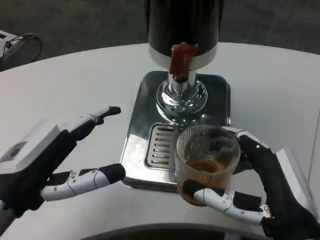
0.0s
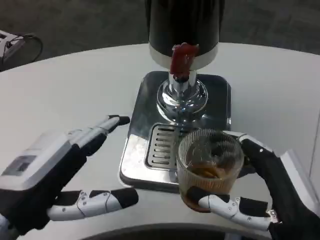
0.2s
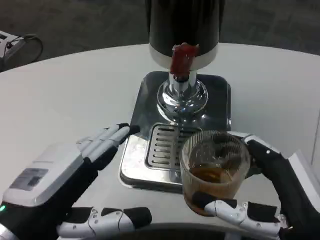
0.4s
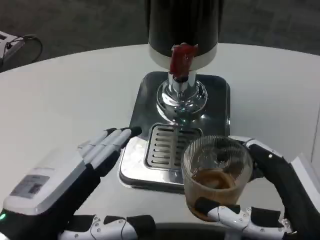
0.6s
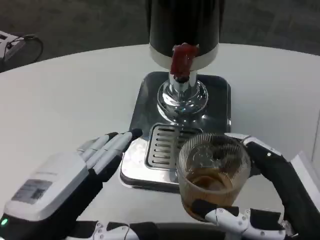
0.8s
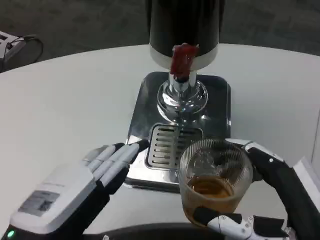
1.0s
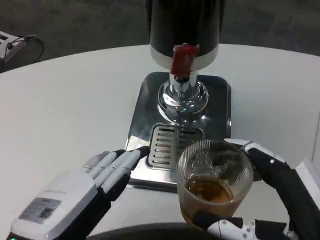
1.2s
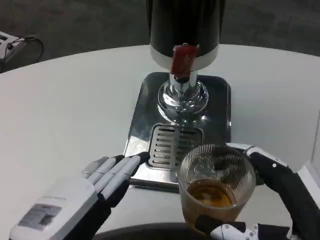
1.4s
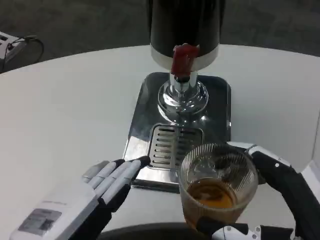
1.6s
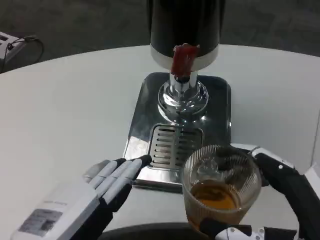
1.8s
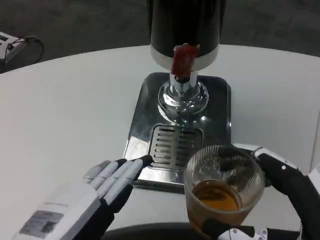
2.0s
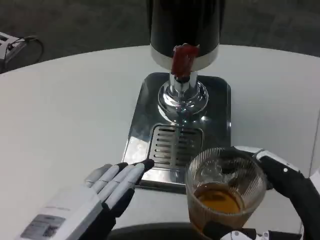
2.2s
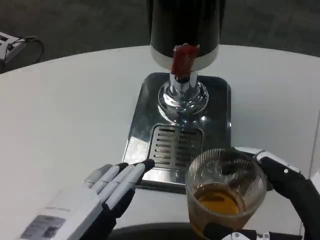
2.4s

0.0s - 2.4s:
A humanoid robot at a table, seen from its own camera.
Task of the whole recording: Grasp the cup under the faucet to collect the drink, then remove the cup.
0.0s - 1.2s: The left hand is displaced backward by about 5 cm.
1.2s - 2.4s: The hands stay close to where they were, moving slightly.

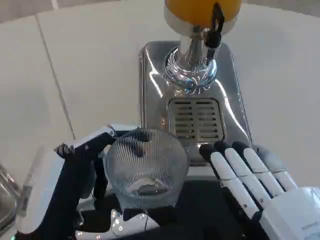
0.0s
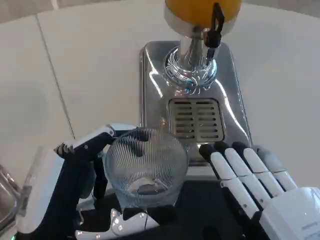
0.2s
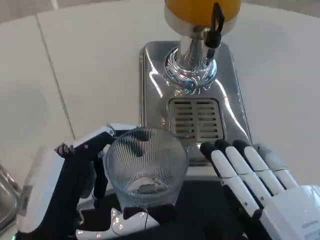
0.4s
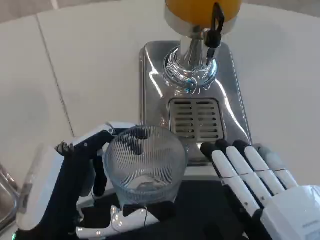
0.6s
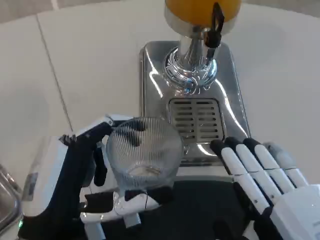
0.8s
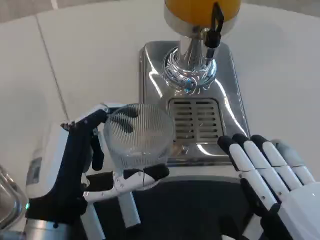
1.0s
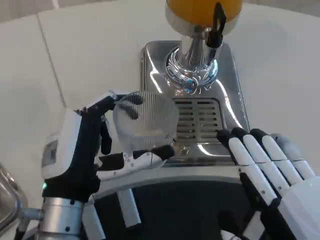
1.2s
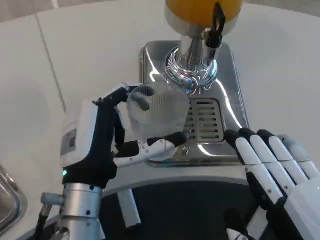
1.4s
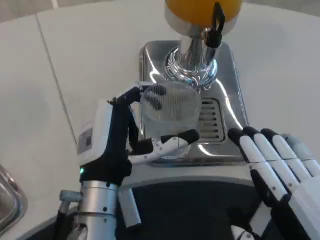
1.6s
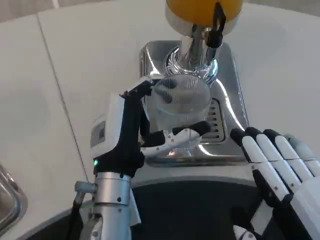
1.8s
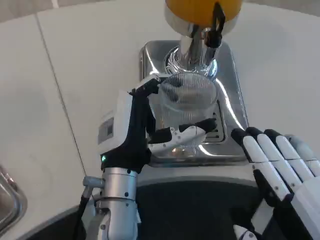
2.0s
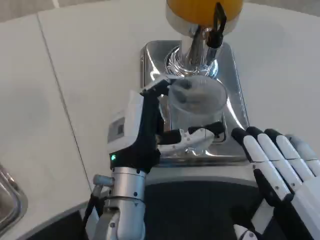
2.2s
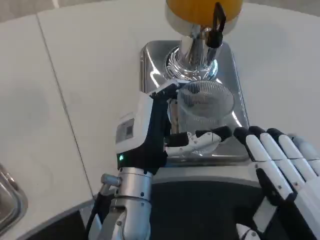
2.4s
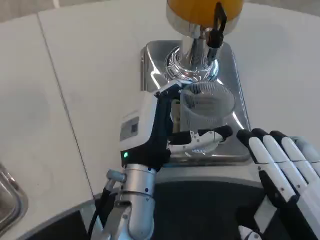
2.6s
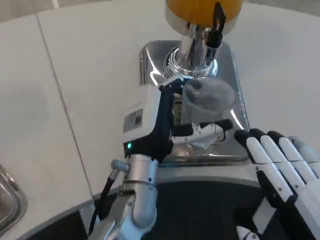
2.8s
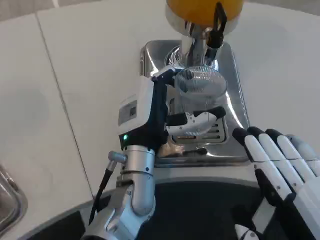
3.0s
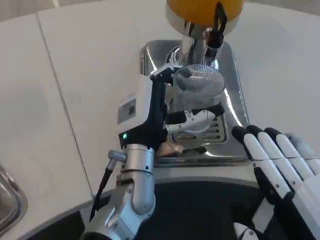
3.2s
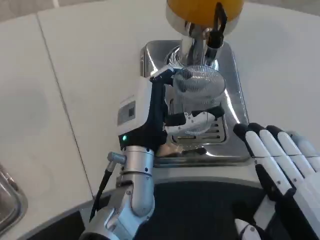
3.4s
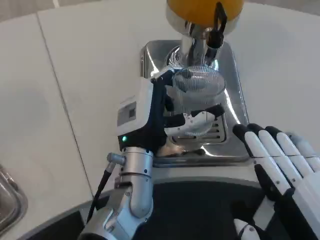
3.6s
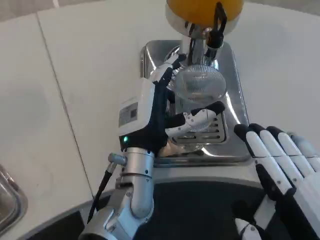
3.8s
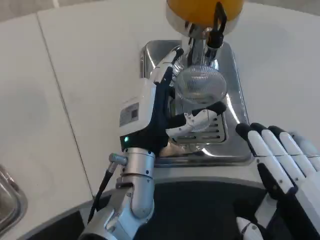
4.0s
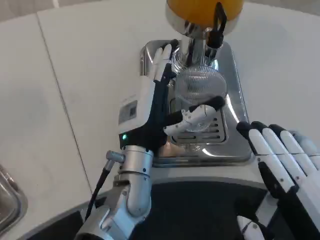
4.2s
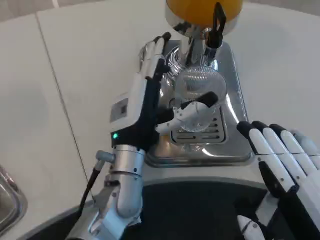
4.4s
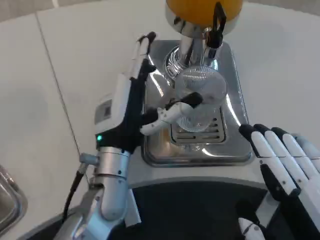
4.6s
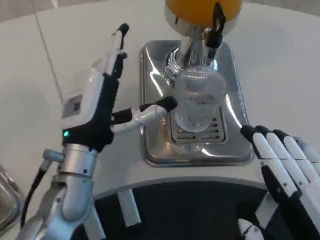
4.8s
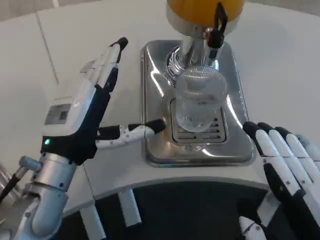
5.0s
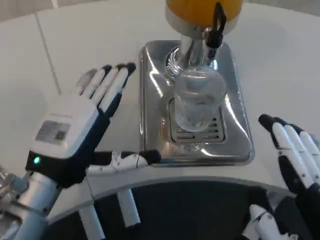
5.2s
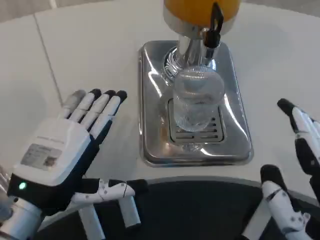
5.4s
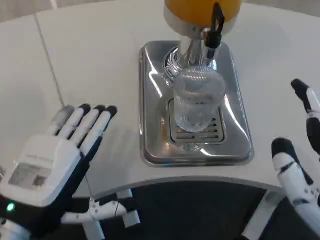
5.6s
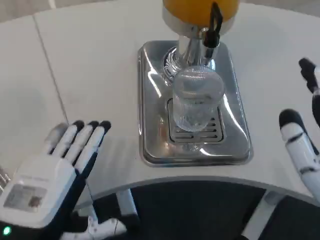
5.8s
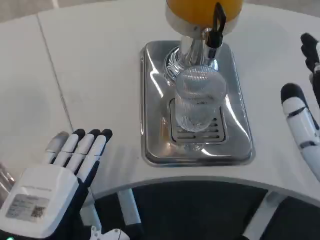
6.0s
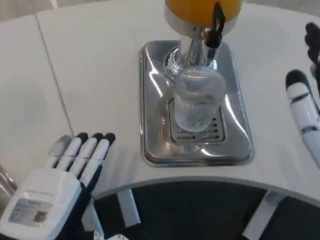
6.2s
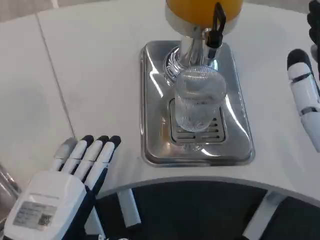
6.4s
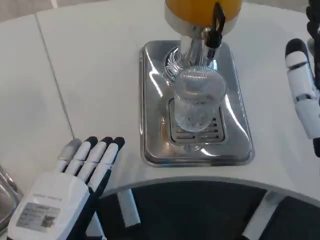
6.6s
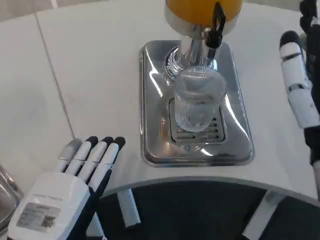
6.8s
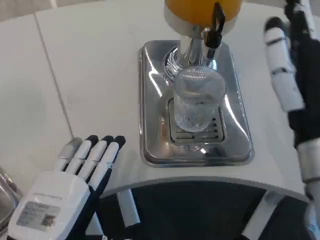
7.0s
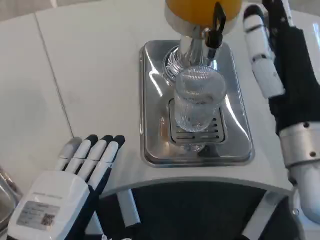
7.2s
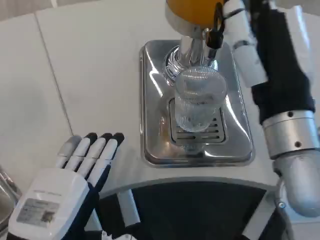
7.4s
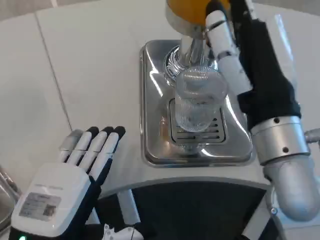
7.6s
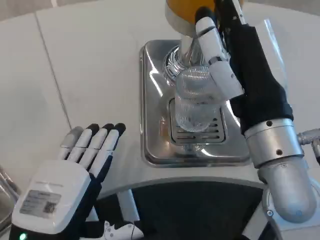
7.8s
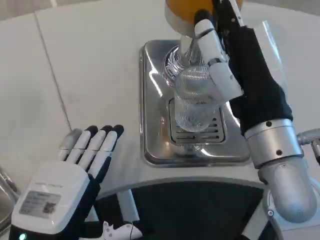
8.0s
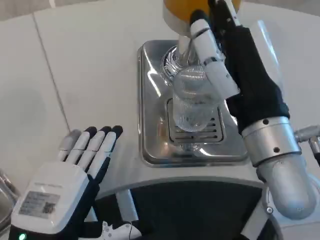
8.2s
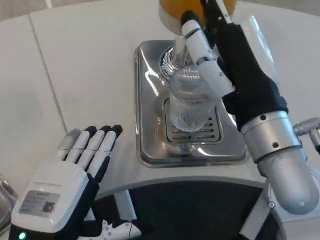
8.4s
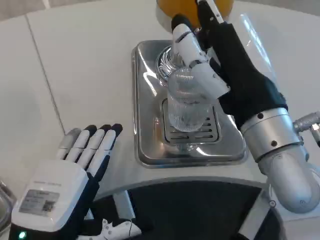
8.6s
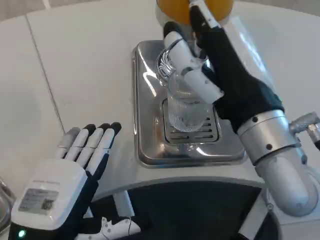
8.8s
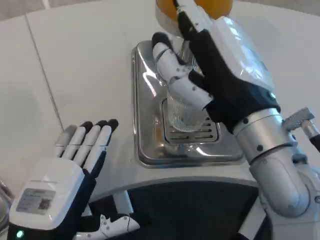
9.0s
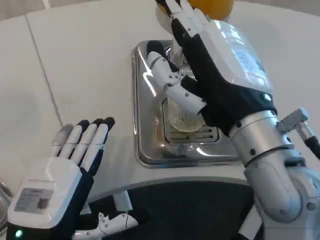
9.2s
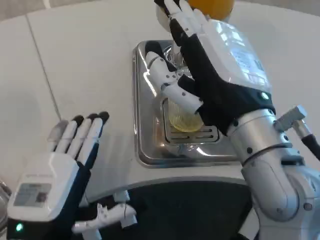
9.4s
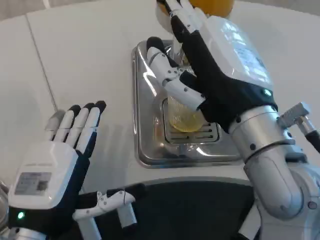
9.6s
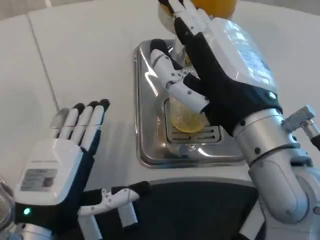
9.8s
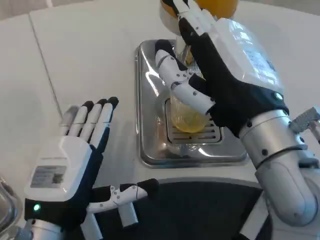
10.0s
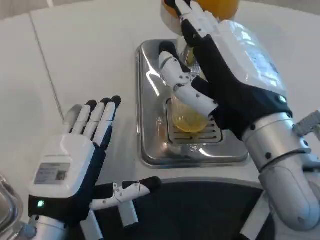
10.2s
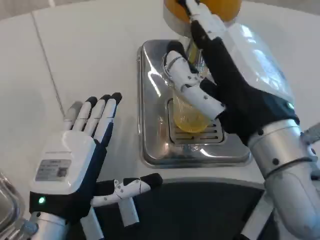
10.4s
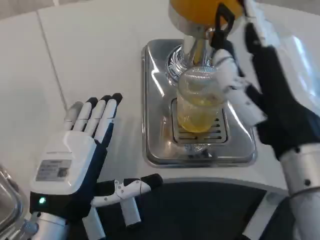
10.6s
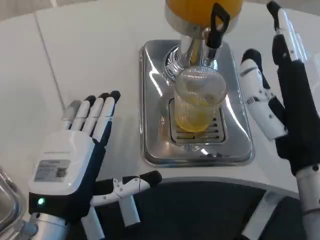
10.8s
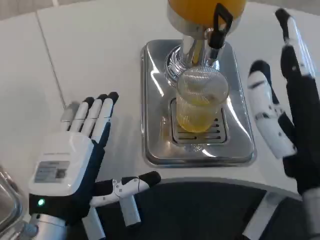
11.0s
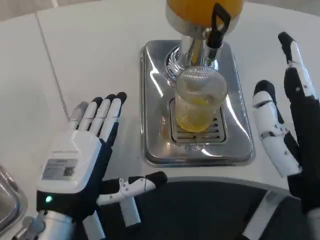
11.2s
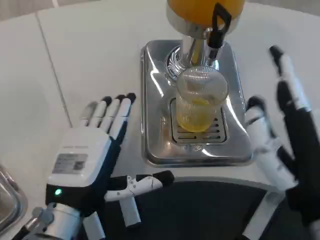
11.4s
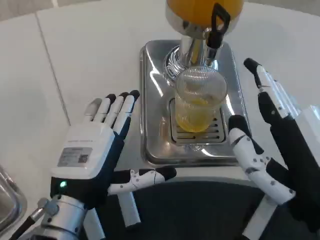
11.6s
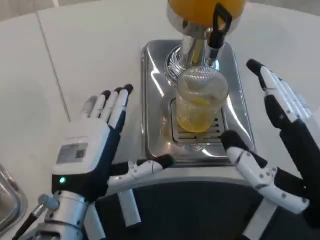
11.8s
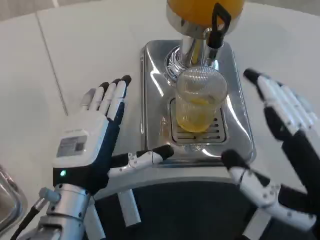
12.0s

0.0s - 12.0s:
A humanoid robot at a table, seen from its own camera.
Task of the whole recording: Grasp the cup under the faucet to collect the drink, then remove the cup.
0.0s - 1.6s: The left hand is displaced forward and to the right by approximately 10 cm.
1.6s - 3.0s: The left hand is displaced forward by some 5 cm.
3.0s - 4.4s: The hands make only small movements.
4.4s - 6.0s: The left hand moves backward and to the left, roughly 20 cm, while the right hand is displaced forward by about 5 cm.
6.0s - 7.6s: The right hand travels forward and to the left by approximately 10 cm.
10.4s - 12.0s: The right hand travels to the right, backward and downward by approximately 10 cm.

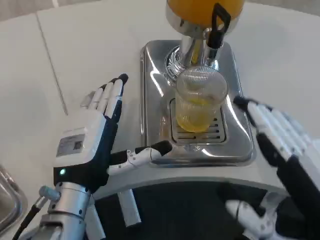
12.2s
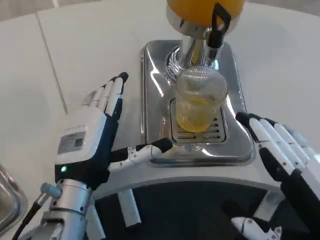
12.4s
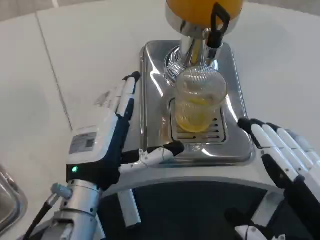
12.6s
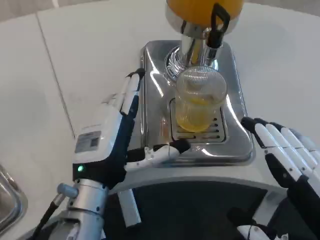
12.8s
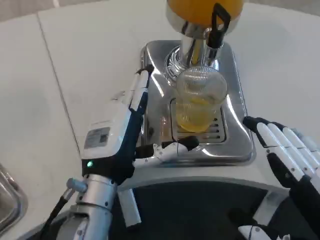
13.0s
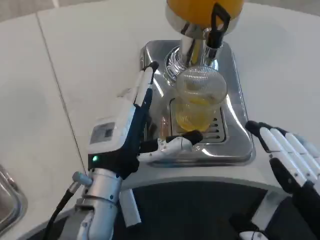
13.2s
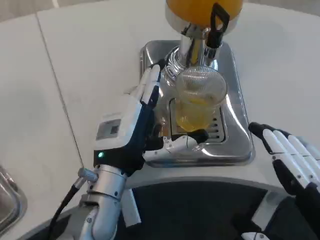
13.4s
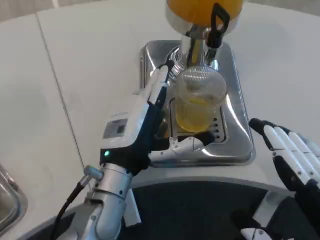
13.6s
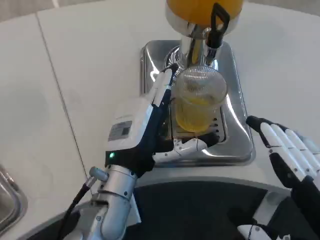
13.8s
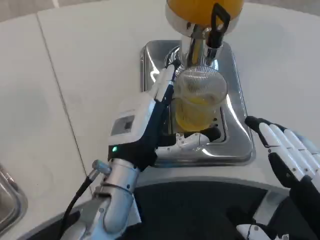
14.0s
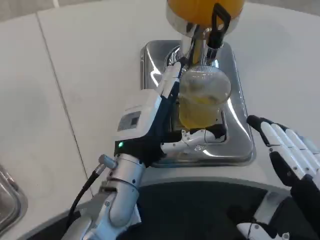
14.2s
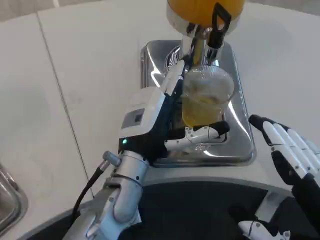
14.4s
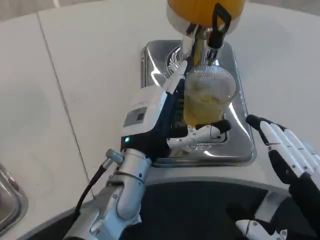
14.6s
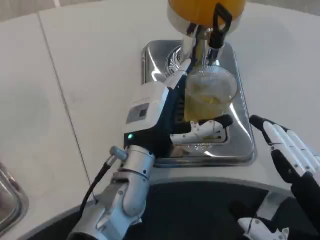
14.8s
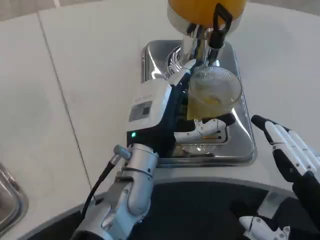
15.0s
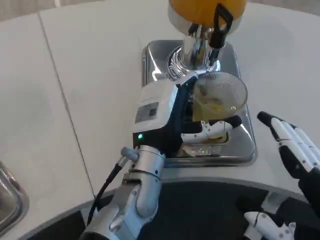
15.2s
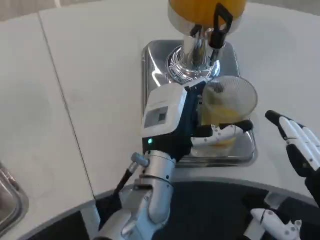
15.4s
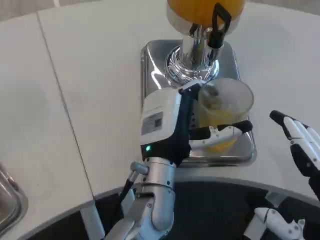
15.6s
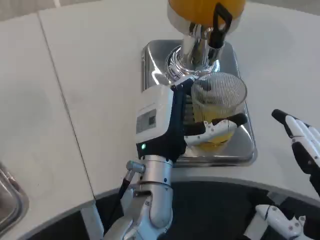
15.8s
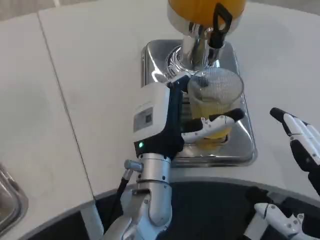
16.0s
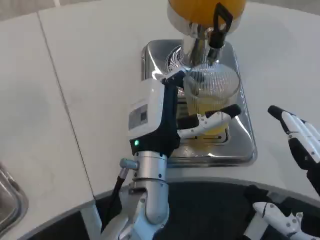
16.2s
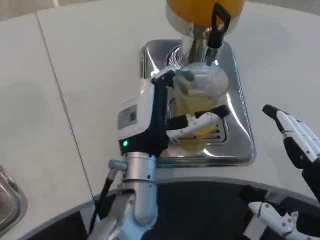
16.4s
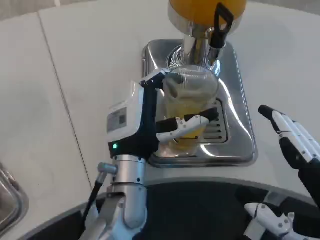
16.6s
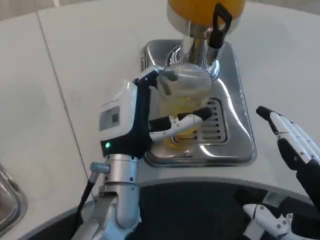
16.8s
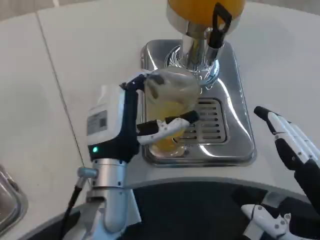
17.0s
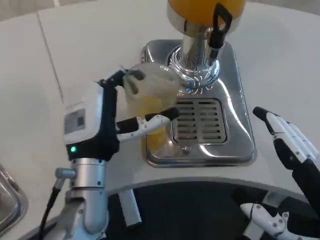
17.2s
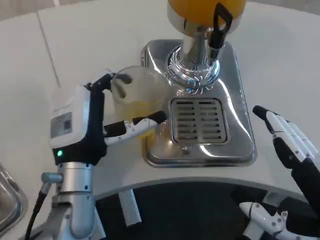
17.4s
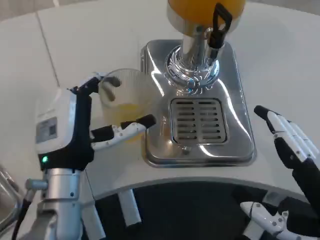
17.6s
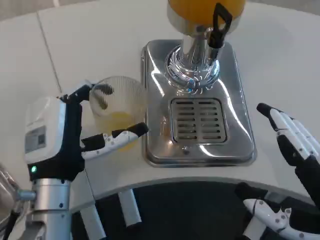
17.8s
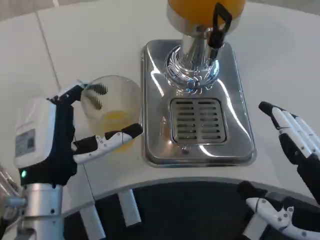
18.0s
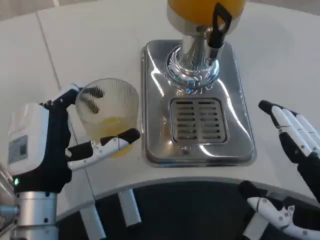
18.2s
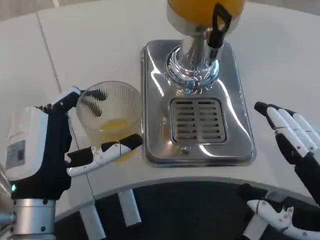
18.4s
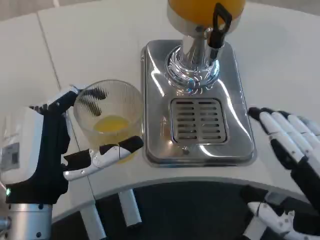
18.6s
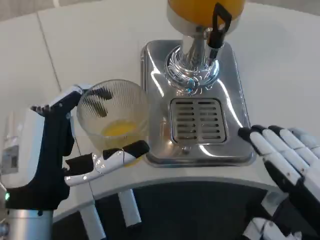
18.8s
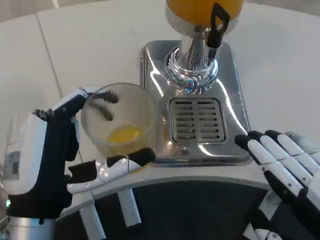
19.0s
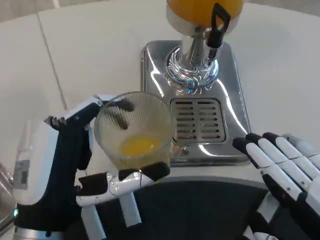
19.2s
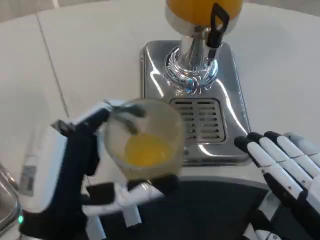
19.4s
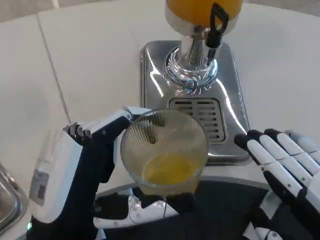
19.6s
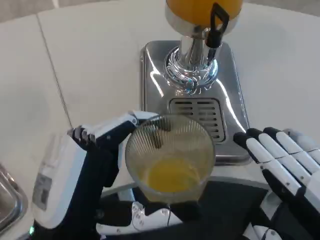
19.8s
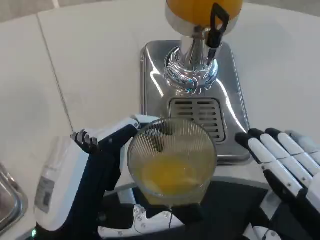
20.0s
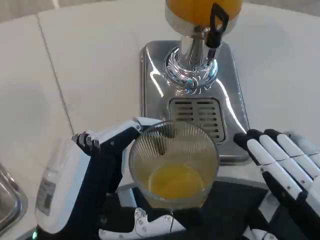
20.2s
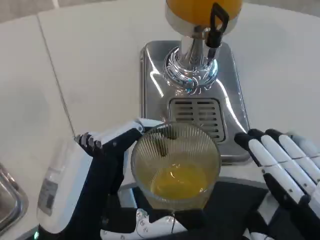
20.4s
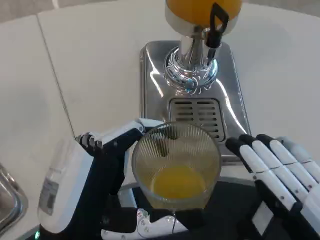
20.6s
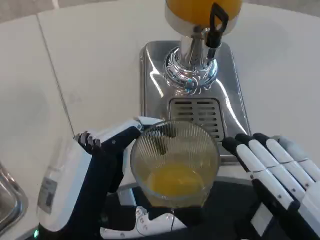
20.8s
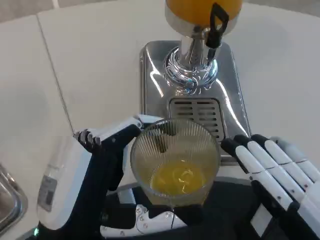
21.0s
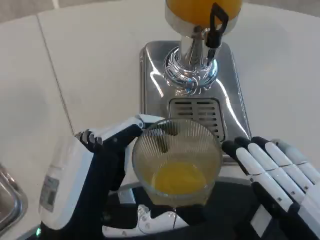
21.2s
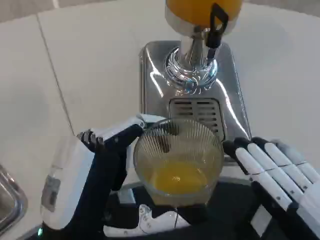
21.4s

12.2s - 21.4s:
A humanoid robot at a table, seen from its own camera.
Task of the whole recording: Grasp the cup under the faucet to collect the drink, then remove the cup.
12.2s - 13.8s: The left hand heads to the right, covering roughly 5 cm.
13.8s - 15.2s: The left hand changes place by about 5 cm.
16.8s - 18.4s: The left hand goes approximately 10 cm to the left and backward.
18.4s - 19.8s: The left hand is displaced backward by roughly 5 cm.
19.8s - 21.4s: The hands move only a little.
